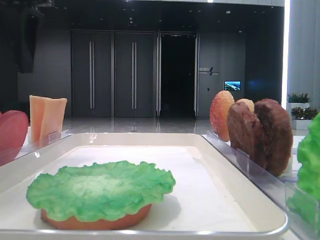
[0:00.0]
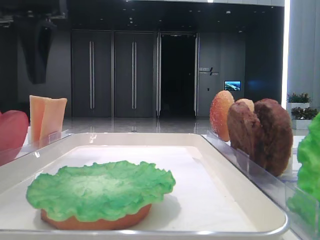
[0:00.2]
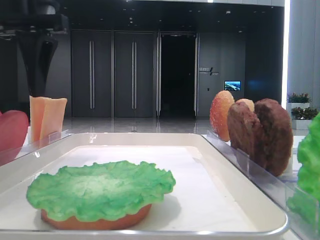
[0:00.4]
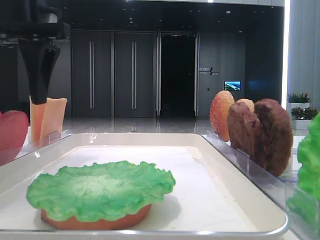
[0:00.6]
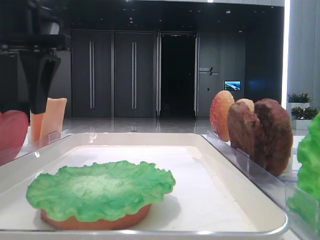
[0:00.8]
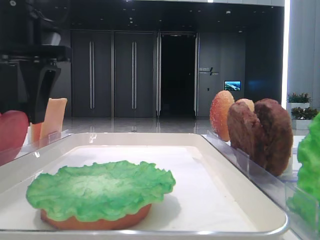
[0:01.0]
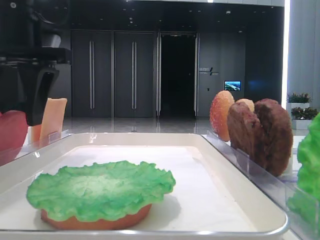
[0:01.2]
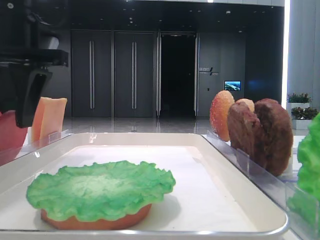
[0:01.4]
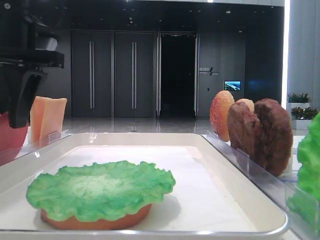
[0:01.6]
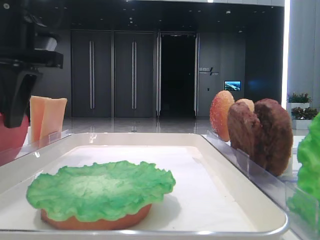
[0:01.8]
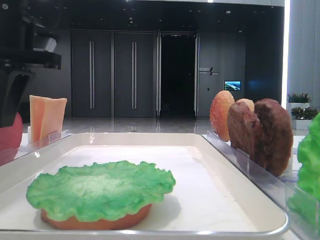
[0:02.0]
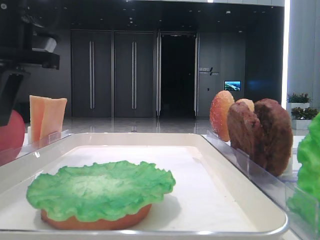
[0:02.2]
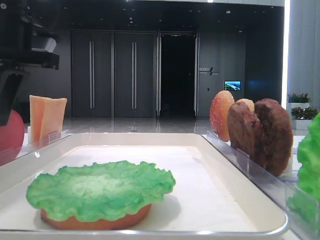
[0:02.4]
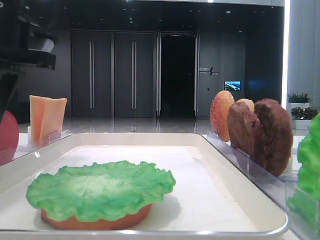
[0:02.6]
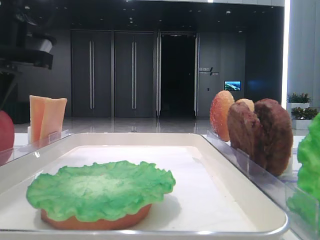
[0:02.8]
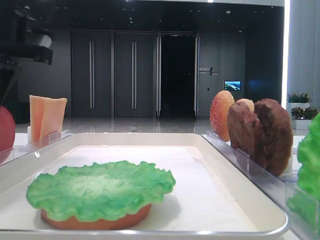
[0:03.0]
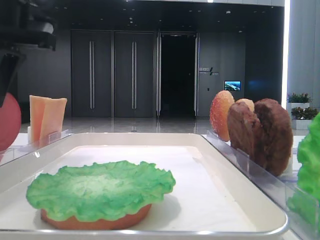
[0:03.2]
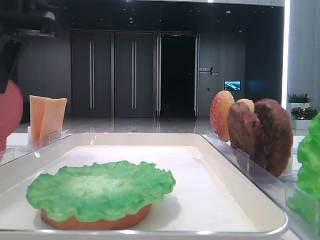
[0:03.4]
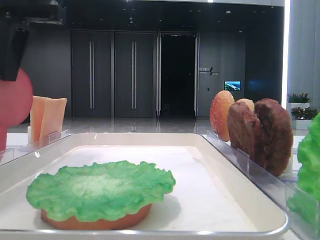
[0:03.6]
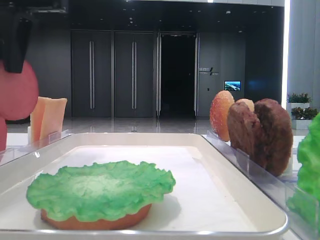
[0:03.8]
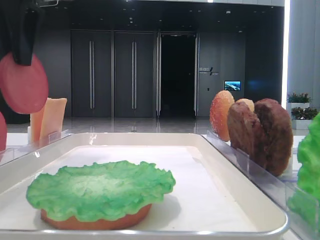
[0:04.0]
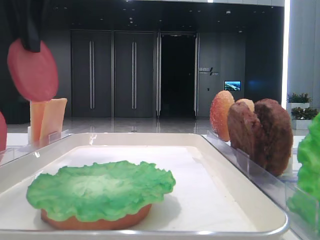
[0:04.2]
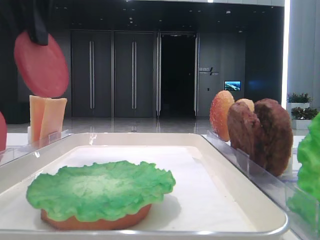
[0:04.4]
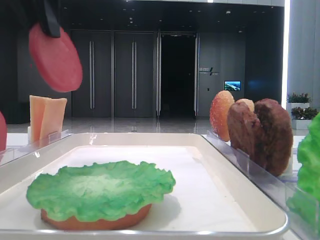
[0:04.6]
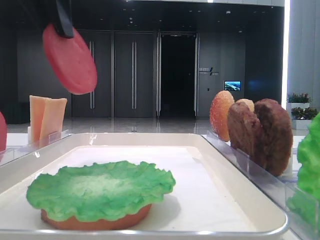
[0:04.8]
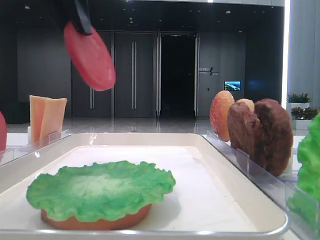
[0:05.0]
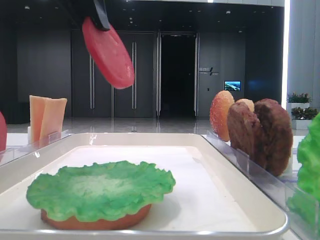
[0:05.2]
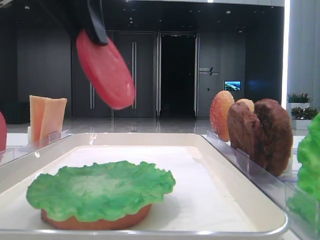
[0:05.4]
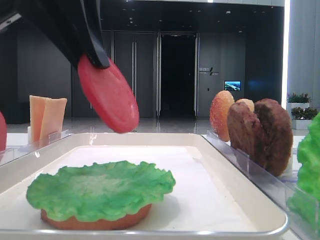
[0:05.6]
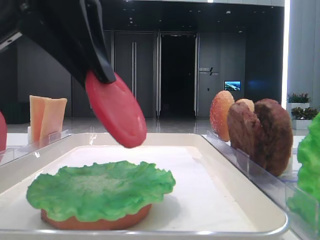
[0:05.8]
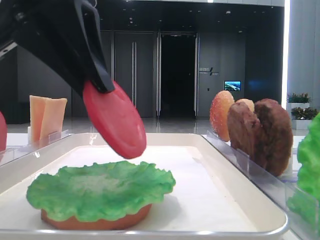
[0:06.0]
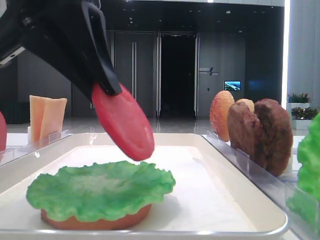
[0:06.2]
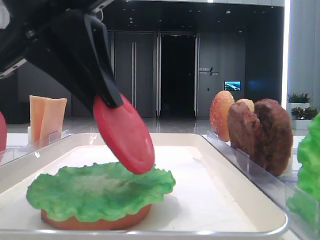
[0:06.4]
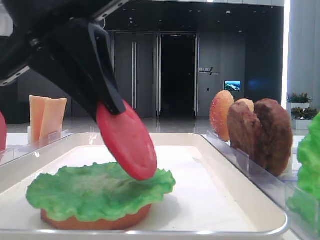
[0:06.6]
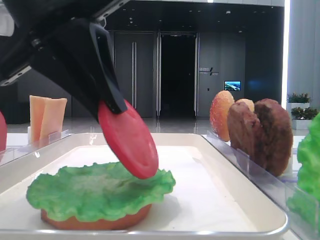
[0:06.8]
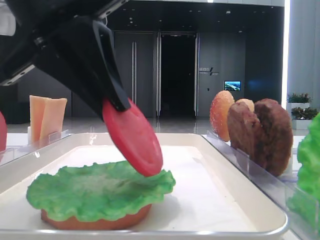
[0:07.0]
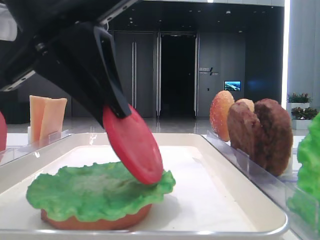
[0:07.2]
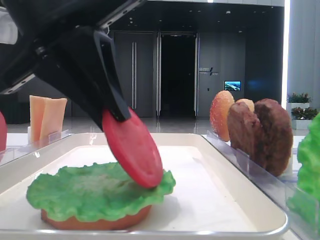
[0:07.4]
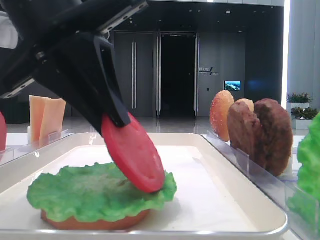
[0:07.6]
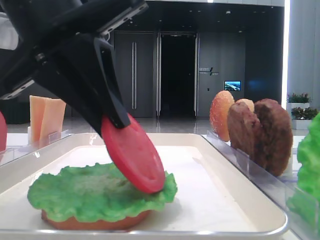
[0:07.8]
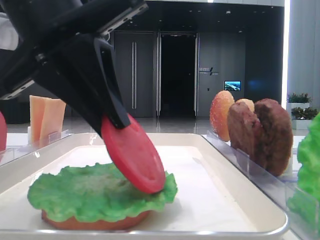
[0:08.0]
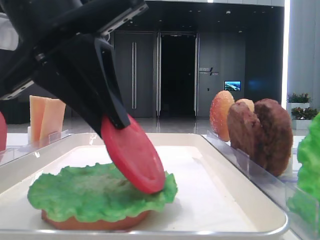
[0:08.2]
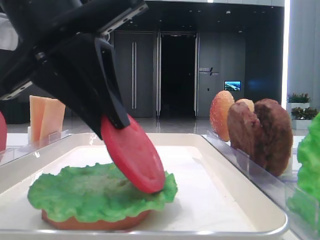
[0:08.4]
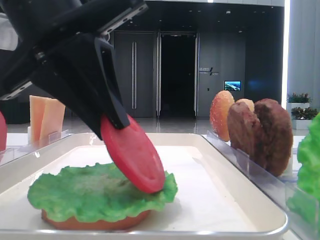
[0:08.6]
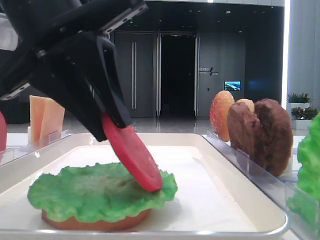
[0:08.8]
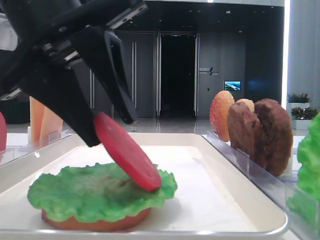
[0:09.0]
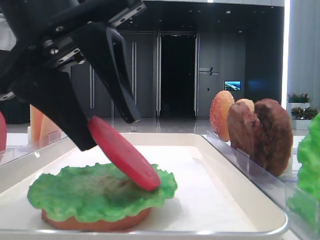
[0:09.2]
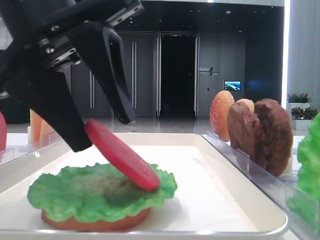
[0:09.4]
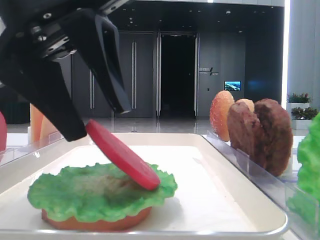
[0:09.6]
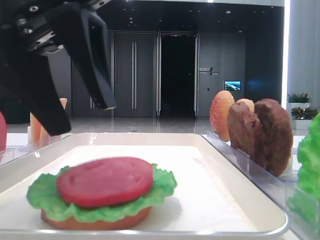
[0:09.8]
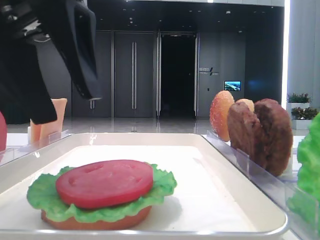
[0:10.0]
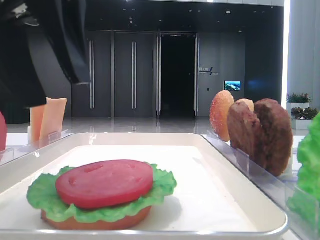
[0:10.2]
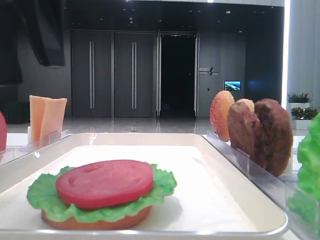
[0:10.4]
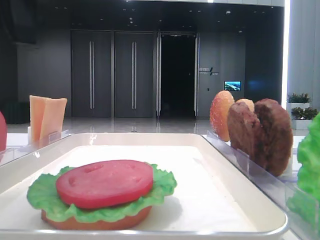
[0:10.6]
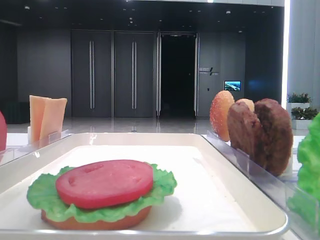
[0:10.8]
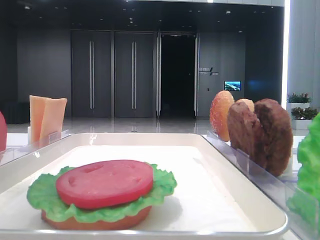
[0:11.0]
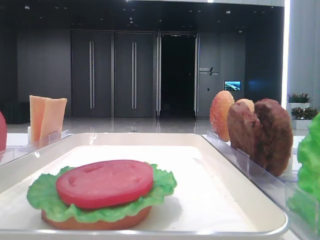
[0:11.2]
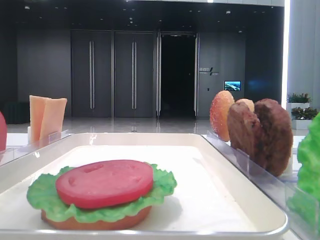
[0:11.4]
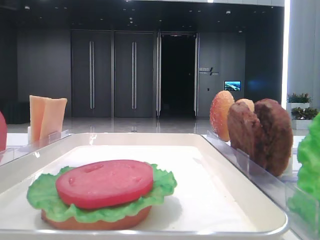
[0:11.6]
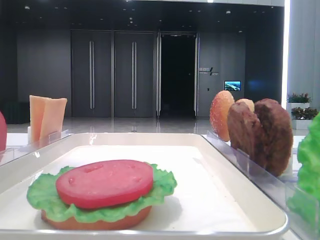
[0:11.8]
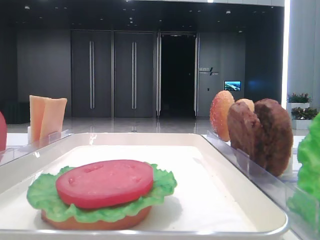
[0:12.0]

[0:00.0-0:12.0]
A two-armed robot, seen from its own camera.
Step, 0:00.0 to 0:02.4: Pick up the tomato slice with the left hand.
Step, 0:02.6 to 0:09.6: Place the tomato slice on the lettuce leaf with the left hand.
0:00.0 to 0:01.6: The left gripper moves downward, roughly 5 cm.
0:01.6 to 0:03.0: The left gripper closes up.
0:03.0 to 0:04.4: The left gripper travels upward by approximately 10 cm.
0:04.4 to 0:06.0: The left gripper travels downward and backward by about 10 cm.
0:06.0 to 0:07.6: The grippers make only small movements.
0:07.6 to 0:09.0: The left gripper opens up.
0:09.0 to 0:10.4: The left gripper shifts approximately 5 cm upward.
0:10.4 to 0:12.0: The left gripper is displaced to the left, upward and forward by approximately 15 cm.

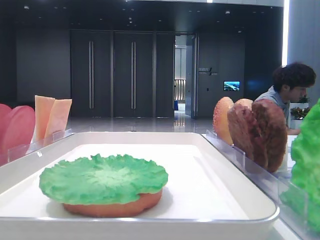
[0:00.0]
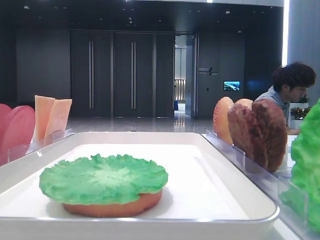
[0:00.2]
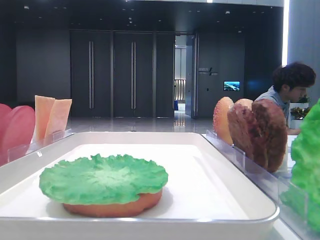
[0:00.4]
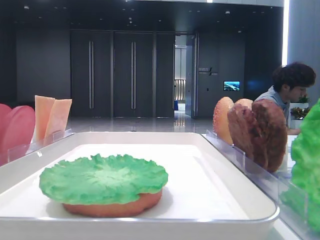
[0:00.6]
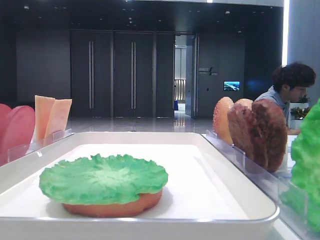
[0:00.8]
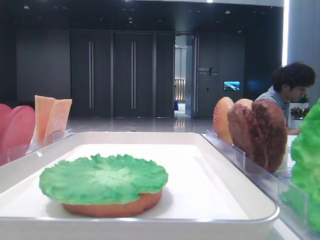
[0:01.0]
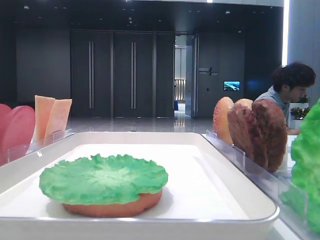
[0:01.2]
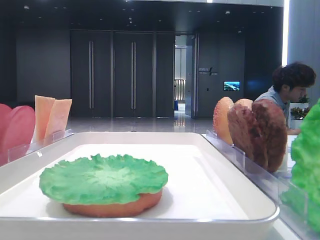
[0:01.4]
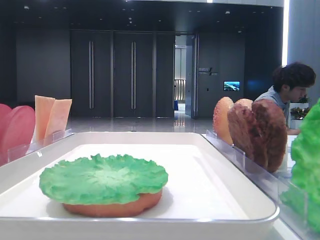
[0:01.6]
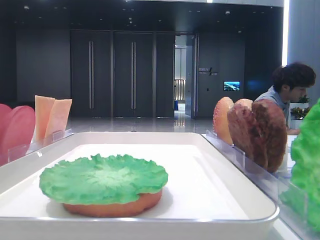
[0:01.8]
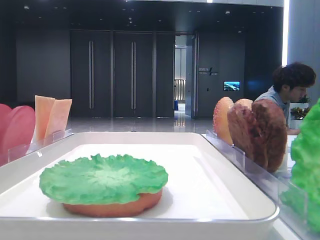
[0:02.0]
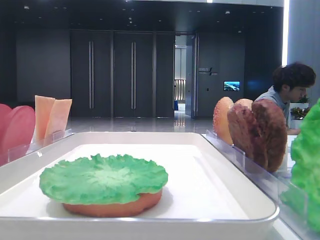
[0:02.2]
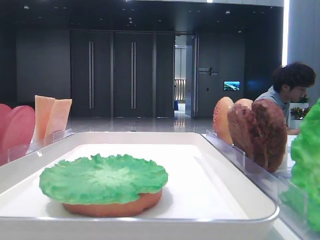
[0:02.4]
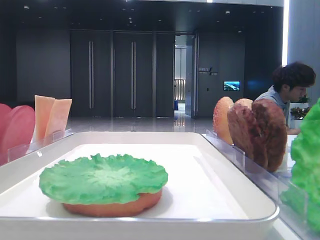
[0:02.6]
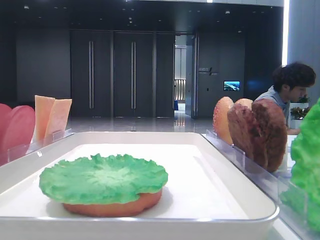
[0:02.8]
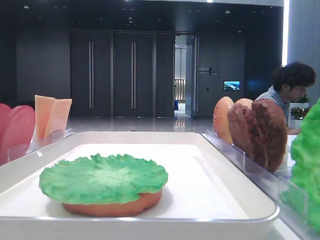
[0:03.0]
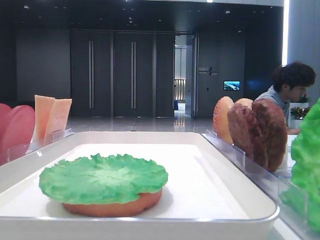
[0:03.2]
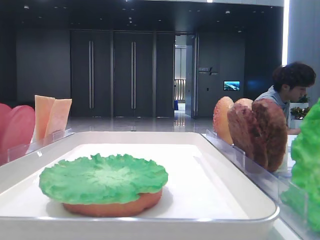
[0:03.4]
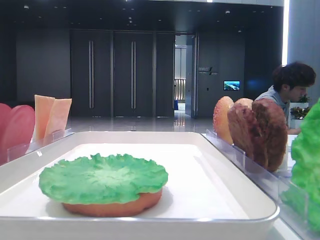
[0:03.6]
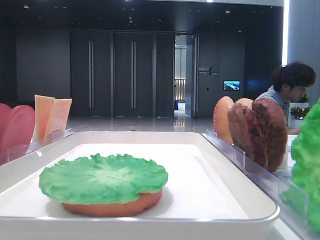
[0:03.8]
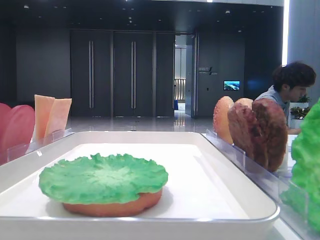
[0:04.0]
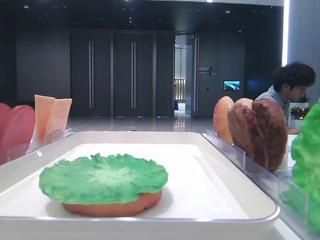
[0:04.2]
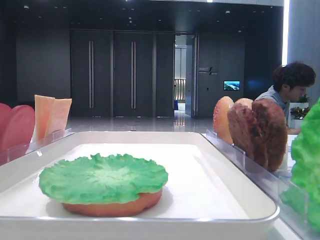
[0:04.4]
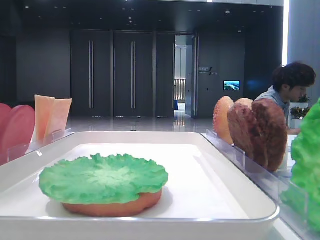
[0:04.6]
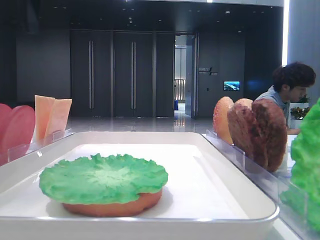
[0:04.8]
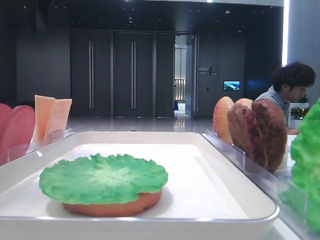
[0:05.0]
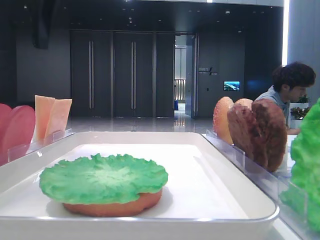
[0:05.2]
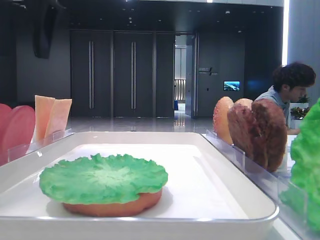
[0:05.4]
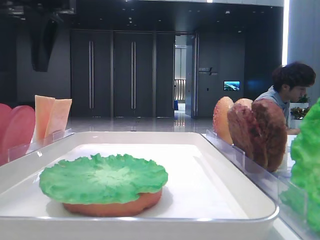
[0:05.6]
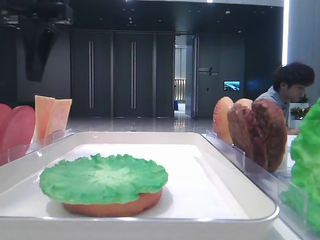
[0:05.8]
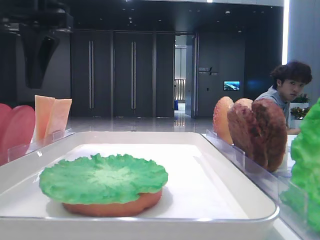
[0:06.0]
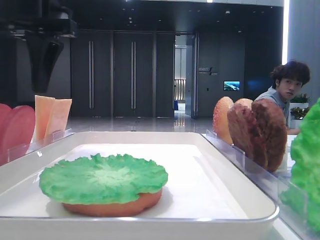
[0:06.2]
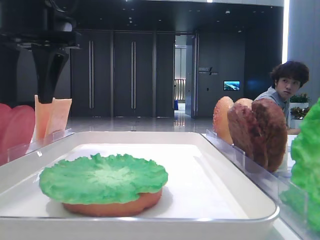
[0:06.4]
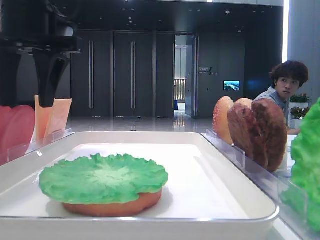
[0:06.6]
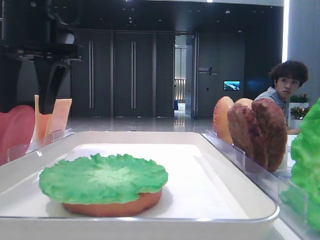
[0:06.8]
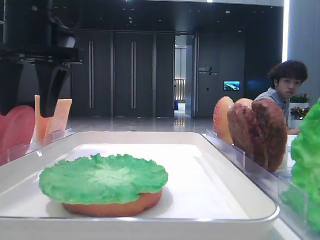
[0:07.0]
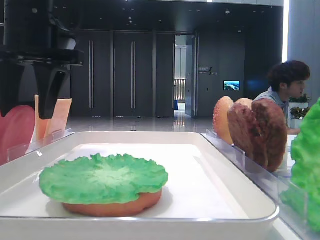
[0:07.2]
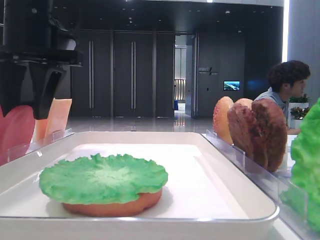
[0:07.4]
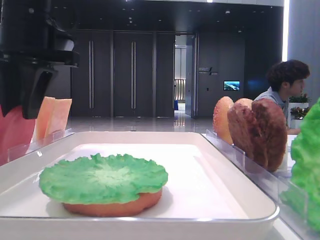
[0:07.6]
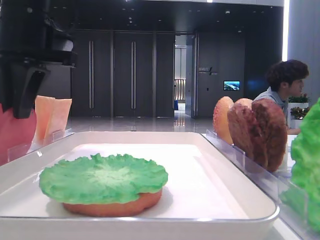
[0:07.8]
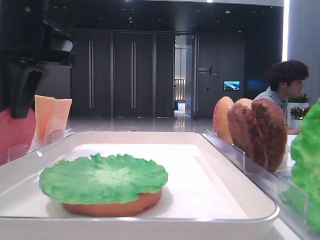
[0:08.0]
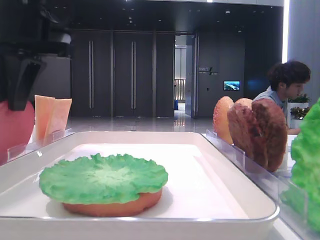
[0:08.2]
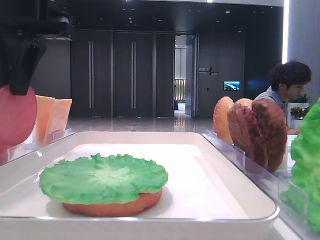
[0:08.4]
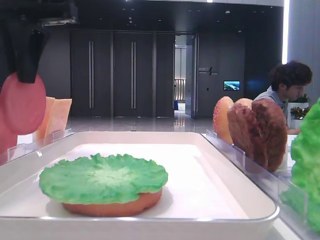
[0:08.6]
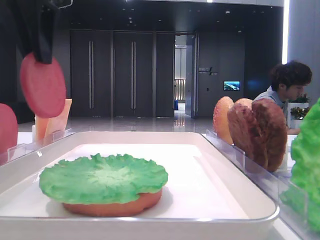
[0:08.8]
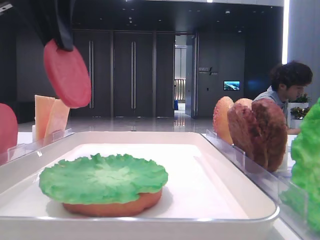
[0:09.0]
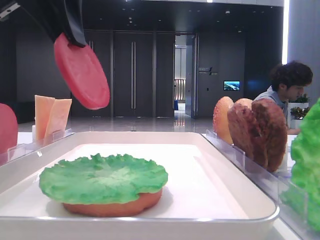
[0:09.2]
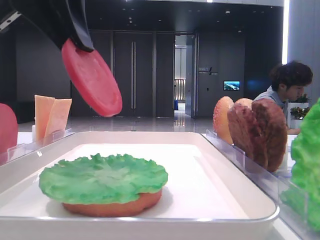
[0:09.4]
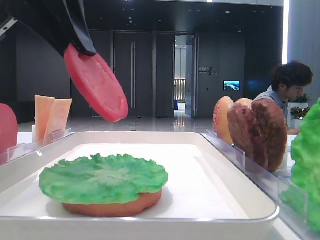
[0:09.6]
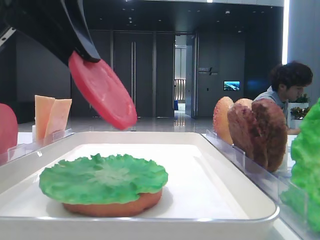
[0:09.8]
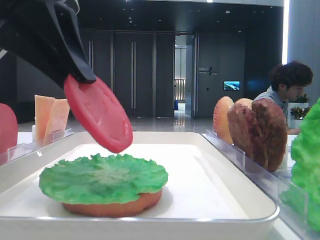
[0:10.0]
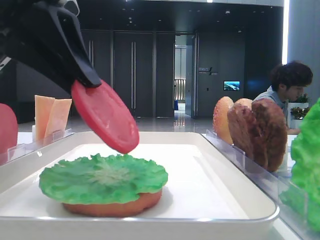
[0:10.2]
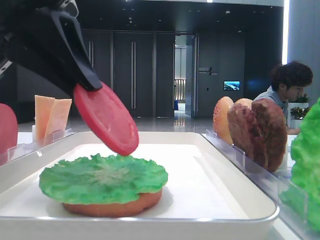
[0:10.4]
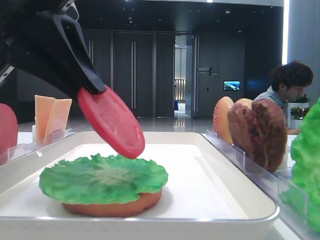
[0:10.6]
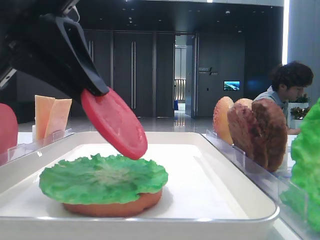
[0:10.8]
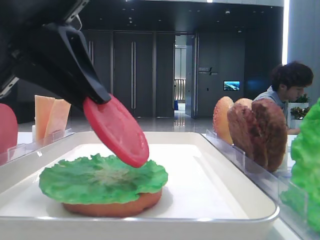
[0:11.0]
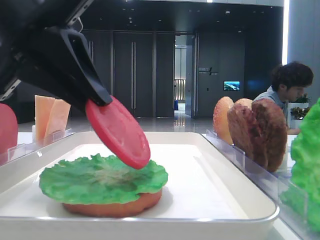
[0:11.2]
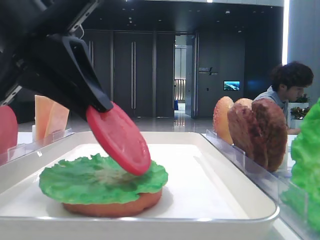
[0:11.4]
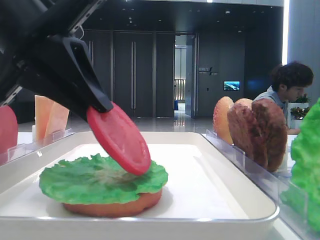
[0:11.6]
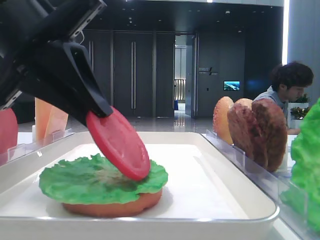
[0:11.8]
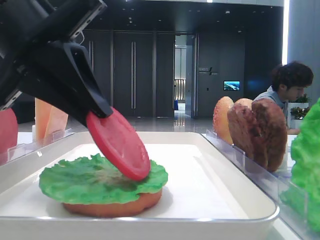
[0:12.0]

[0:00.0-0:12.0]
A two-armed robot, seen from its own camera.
Step, 0:00.0 to 0:08.2: Pick up the tomato slice with the left hand.
0:04.4 to 0:06.0: The left gripper moves to the right and downward, about 10 cm.
0:06.0 to 0:07.6: The left gripper closes up.
0:07.6 to 0:09.0: The left gripper moves upward, some 5 cm.
0:09.0 to 0:10.4: The left gripper is displaced downward and backward by about 10 cm.
0:10.4 to 0:12.0: The grippers stay close to where they were, moving slightly.
